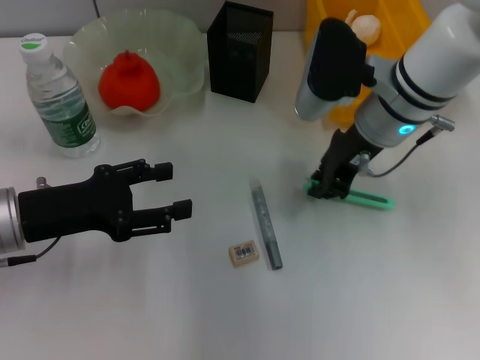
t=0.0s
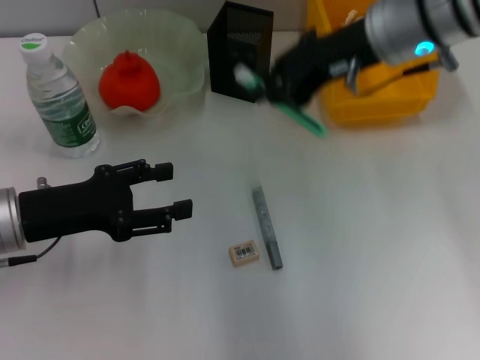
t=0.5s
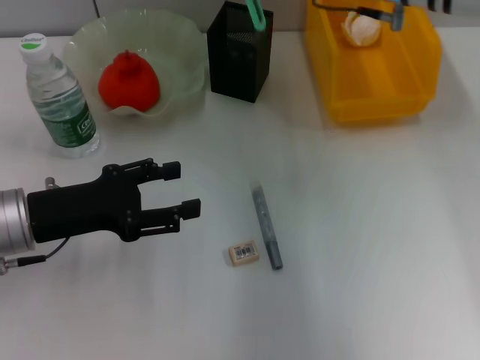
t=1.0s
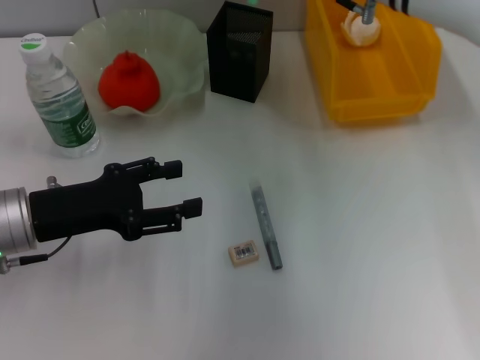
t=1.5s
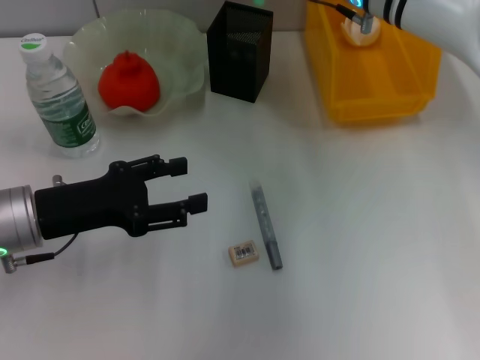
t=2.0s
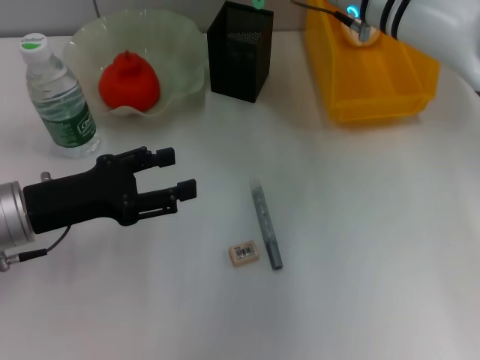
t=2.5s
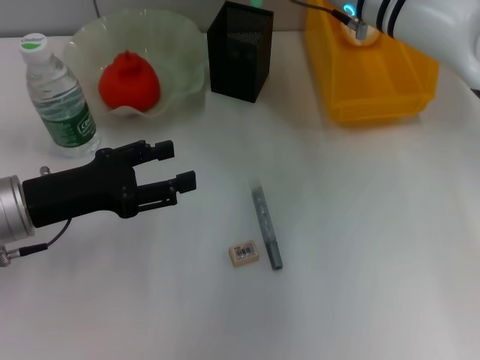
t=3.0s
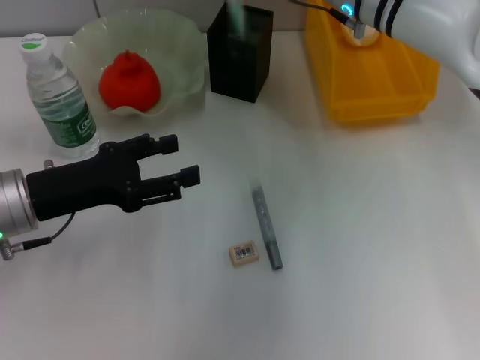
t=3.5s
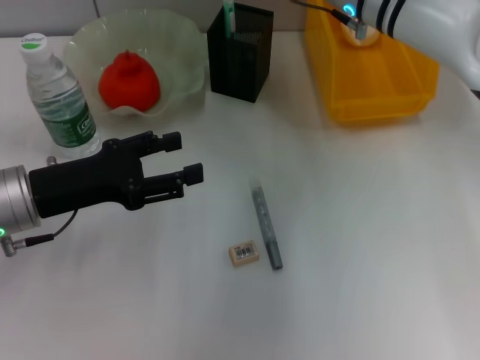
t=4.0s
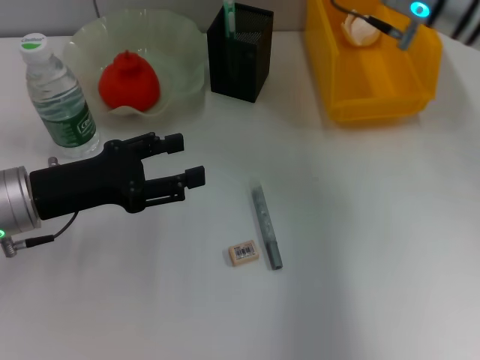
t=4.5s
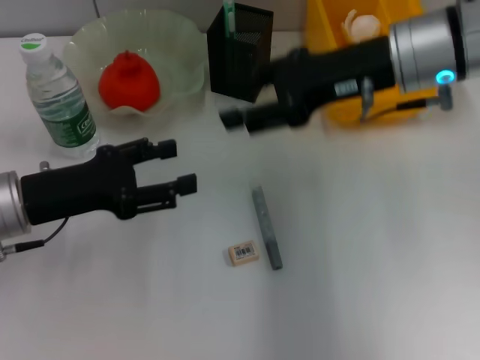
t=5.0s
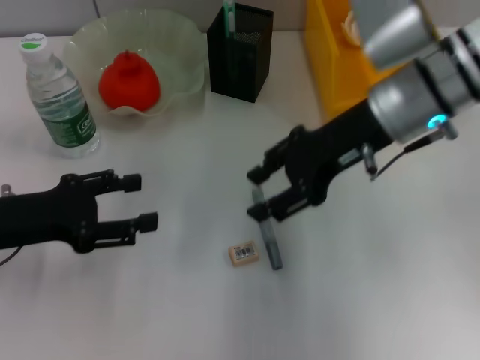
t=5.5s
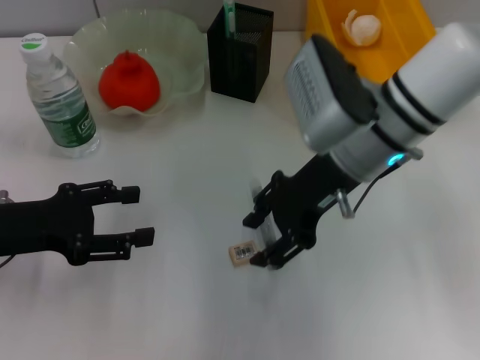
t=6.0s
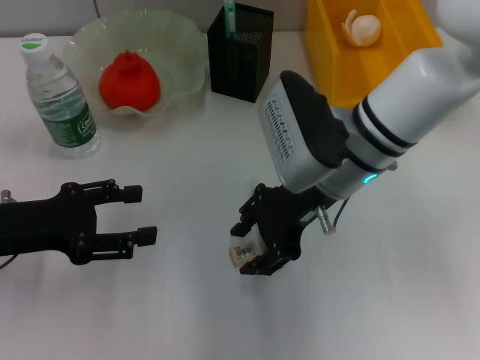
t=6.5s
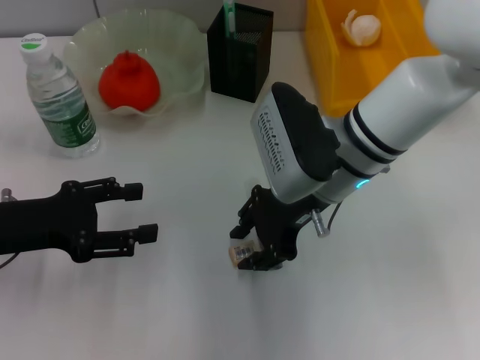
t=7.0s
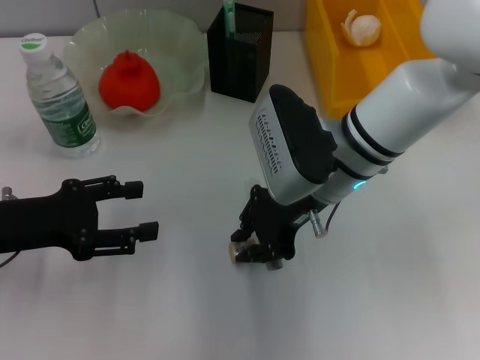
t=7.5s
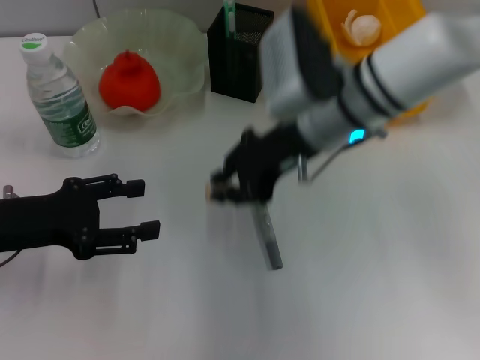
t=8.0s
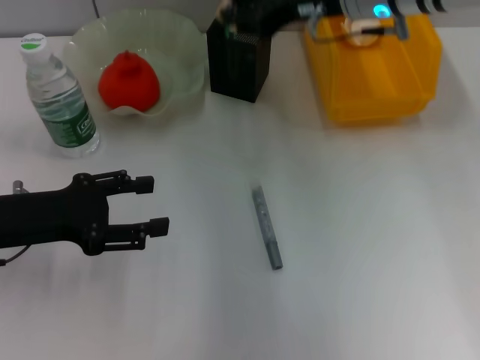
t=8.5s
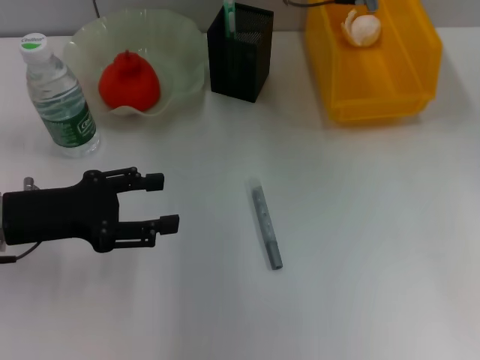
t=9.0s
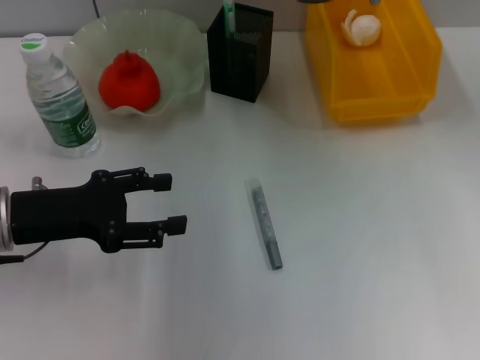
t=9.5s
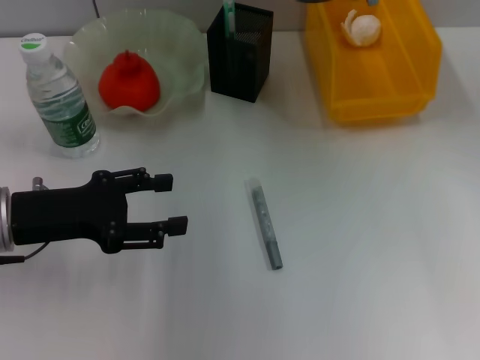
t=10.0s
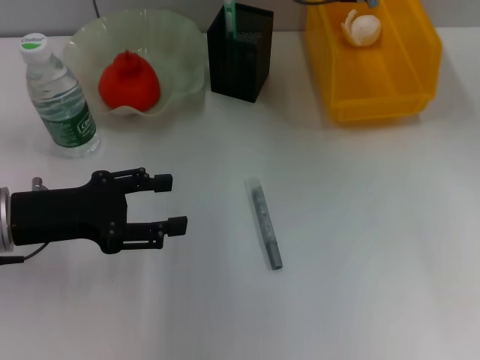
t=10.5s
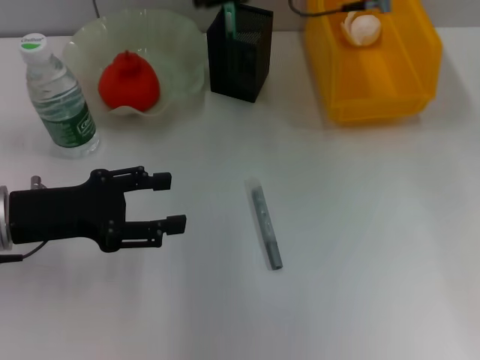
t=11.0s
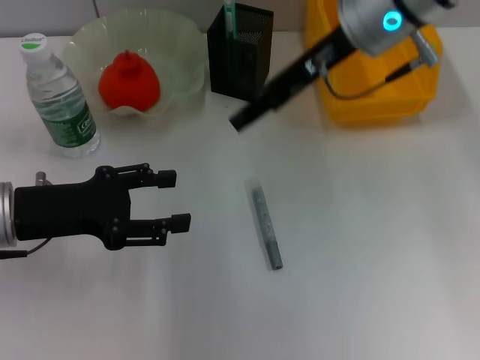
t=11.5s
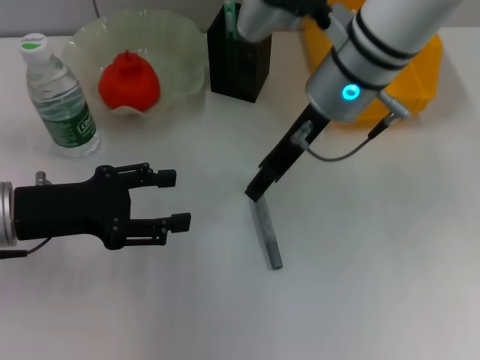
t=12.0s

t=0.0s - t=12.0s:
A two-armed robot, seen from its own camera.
Step, t=0.0s - t=4.0s: Place the blue utility knife into the pen holder with the right hand.
Step, t=4.5s - t=7.0s: Grab the eraser with the right hand.
Step, t=7.5s - t=10.5s: Put the eraser into the pen holder with the right hand.
t=0.0s - t=2.0s: The right gripper moves forward, about 5 cm.
t=2.0s - t=4.0s: The right gripper opens its fingers.
t=4.0s - t=6.0s: The left gripper shifts by some 5 cm, while the right gripper travels backward by roughly 10 cm.
t=6.0s - t=8.0s: The right gripper closes up.
t=8.0s - t=10.0s: The right gripper goes roughly 10 cm forward and upward.
t=10.0s - t=12.0s: The right gripper moves backward, some 10 cm, and opens up.

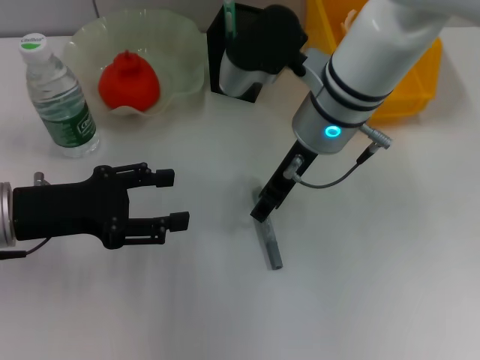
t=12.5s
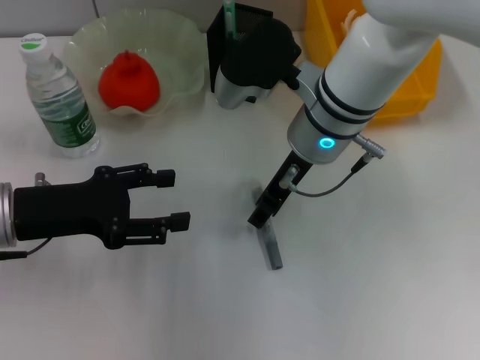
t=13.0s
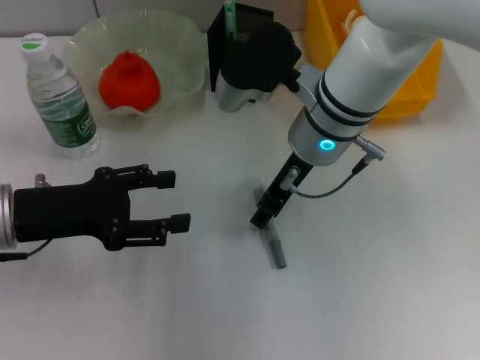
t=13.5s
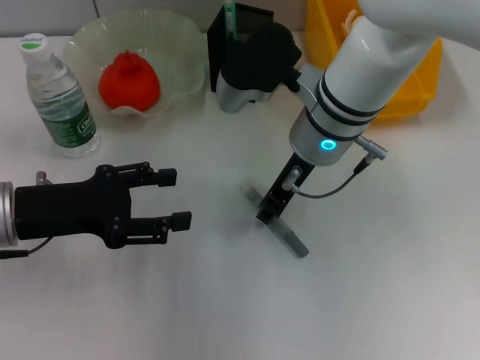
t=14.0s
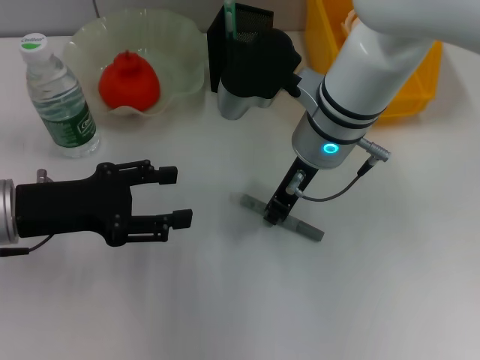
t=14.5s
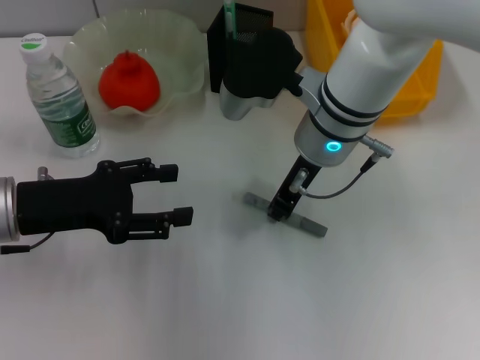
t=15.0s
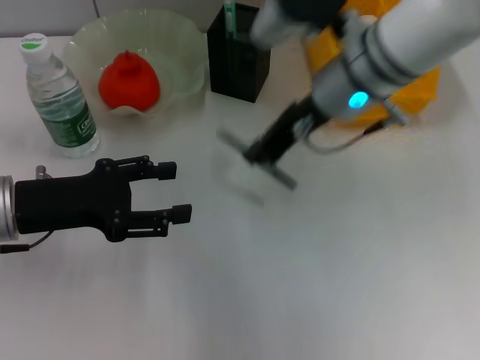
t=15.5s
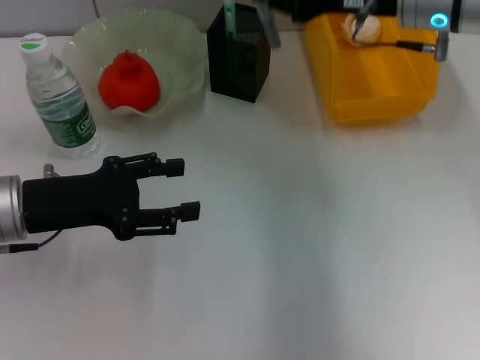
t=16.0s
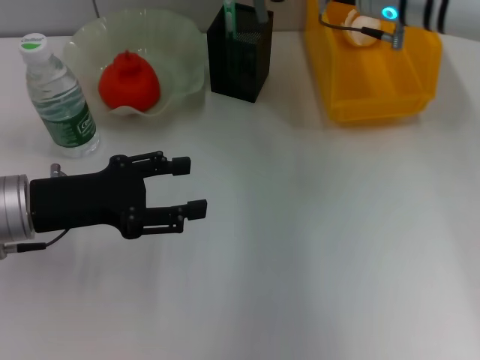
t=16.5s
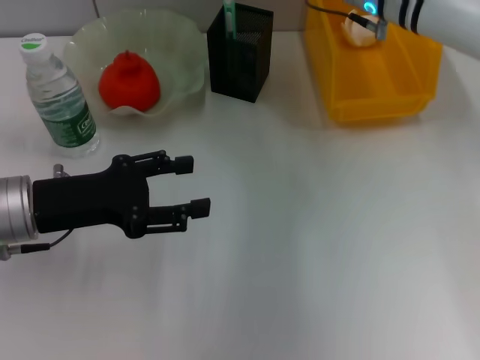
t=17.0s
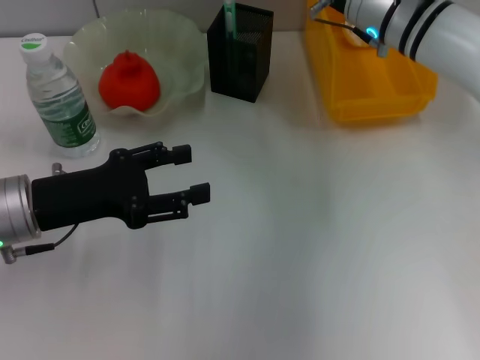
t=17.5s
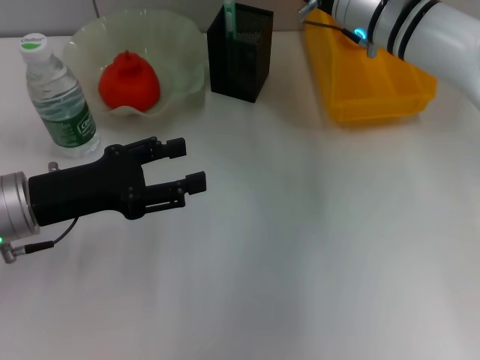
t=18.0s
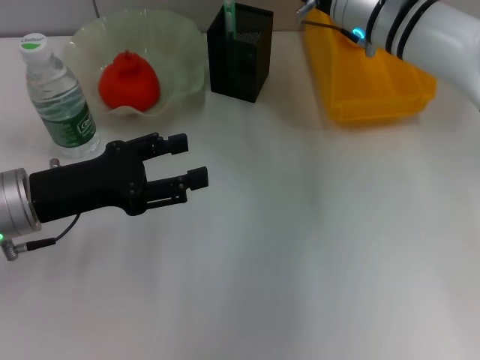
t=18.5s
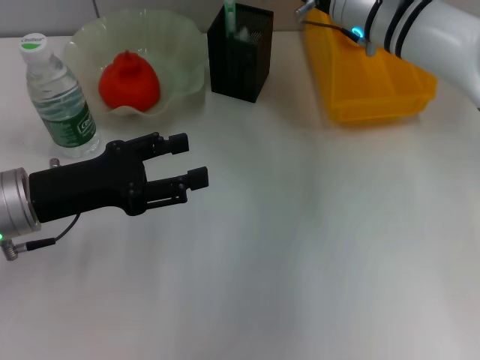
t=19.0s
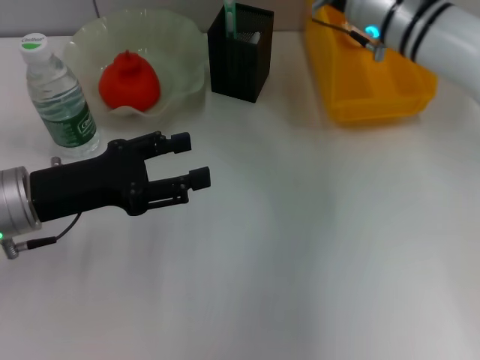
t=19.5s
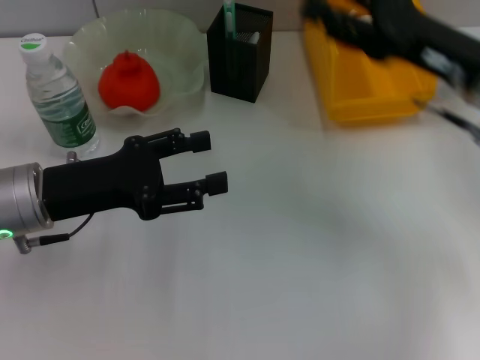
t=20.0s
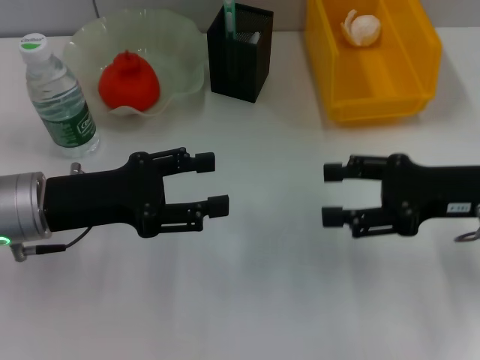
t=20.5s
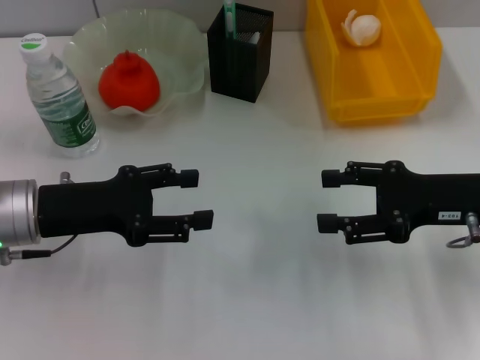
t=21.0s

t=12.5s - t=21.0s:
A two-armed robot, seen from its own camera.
Step, t=12.5s - t=14.5s: Grab the gray glue with the right hand.
Step, t=15.0s - t=19.5s: Place the gray glue into the pen holder with the right hand.
t=12.5s - t=14.5s: The right gripper closes.
t=14.5s - t=16.5s: The right gripper travels to the right and forward by approximately 10 cm.
t=16.5s - t=19.0s: The grippers make only small movements.
t=19.0s - t=21.0s: The right gripper moves backward and to the right, some 20 cm, and opens.

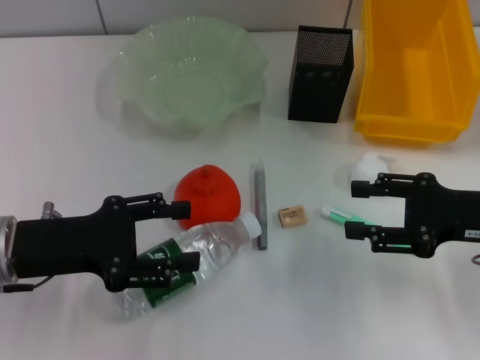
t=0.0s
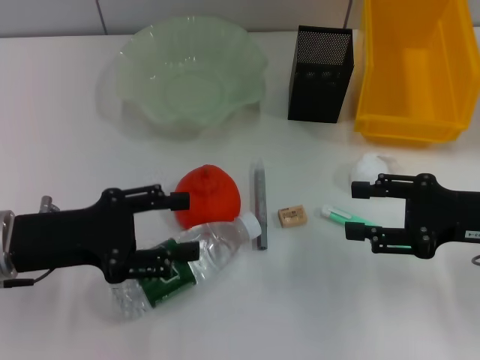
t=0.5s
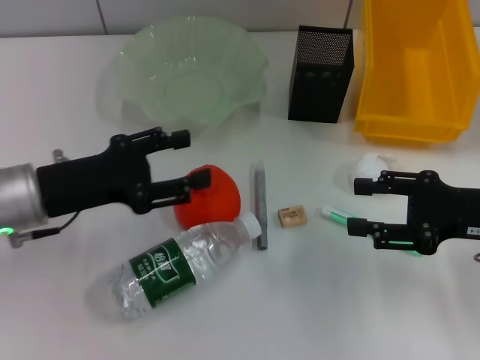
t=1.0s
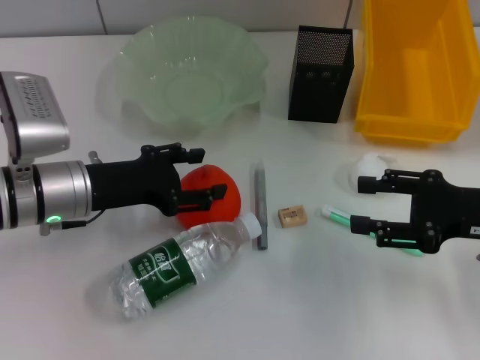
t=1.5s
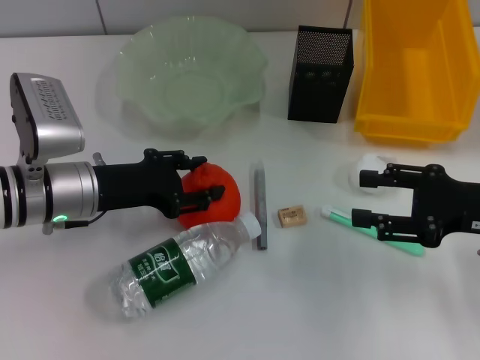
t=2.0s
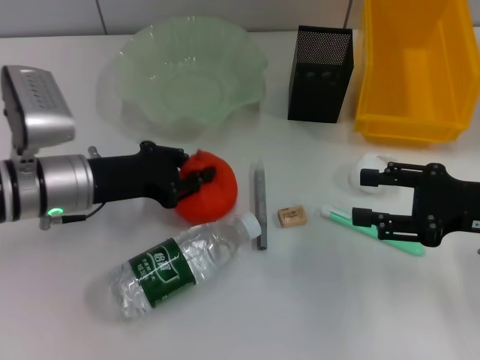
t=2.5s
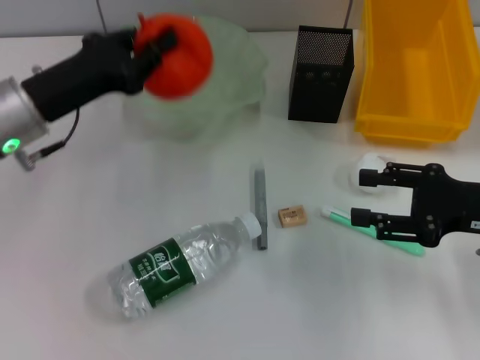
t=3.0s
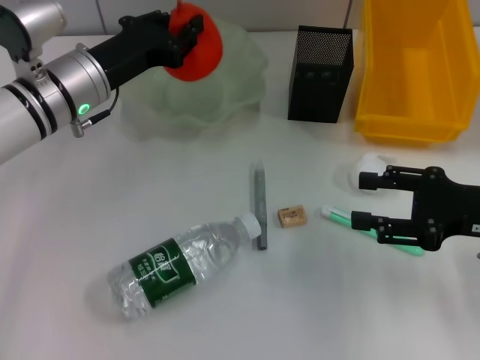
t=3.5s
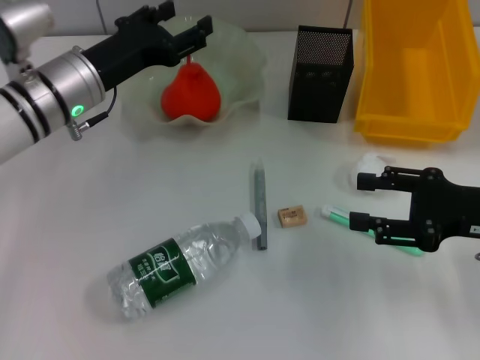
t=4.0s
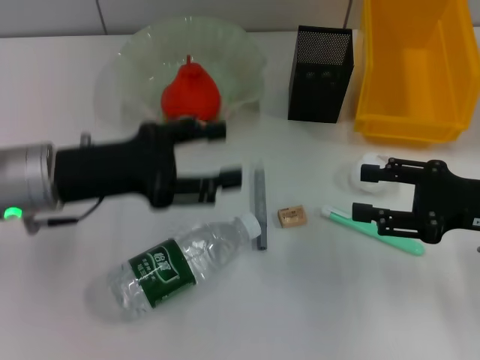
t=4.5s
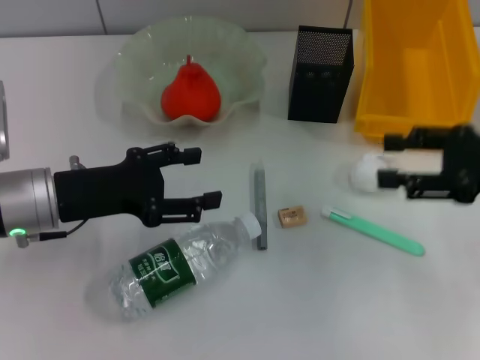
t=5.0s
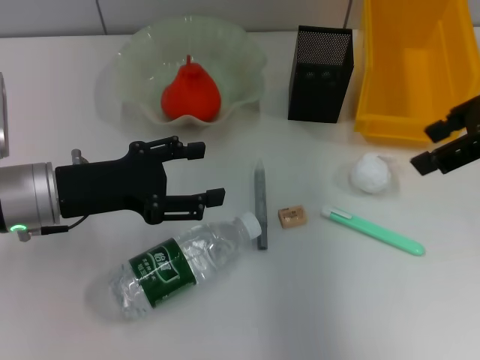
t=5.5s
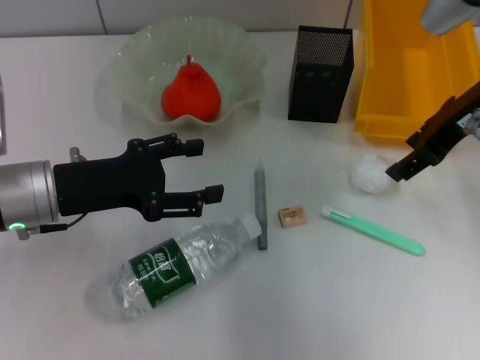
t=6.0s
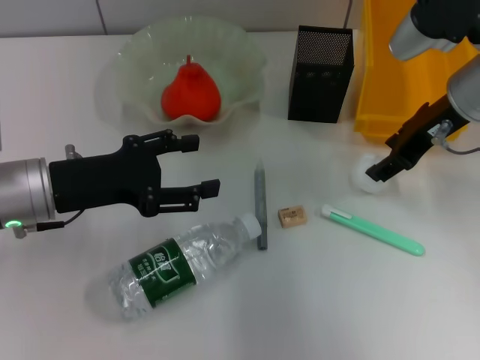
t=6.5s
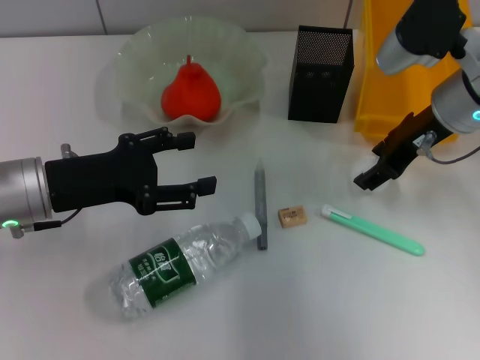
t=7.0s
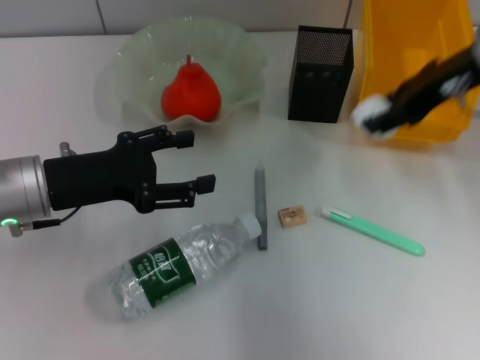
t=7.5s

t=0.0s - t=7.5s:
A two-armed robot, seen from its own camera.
Step, t=0.0s - t=2.0s: Grab the orange with the left hand.
Step, t=2.5s - t=3.5s: Place the orange into the fruit bowl with the left hand.
Step, t=4.0s - t=7.0s: Grab the paper ball with the right hand.
t=0.0s - t=2.0s: The left gripper heads forward, covering roughly 5 cm.
t=2.0s - t=4.0s: The left gripper is displaced forward by approximately 5 cm, and closes, then opens again.
t=4.0s - t=5.5s: The right gripper moves upward and forward, about 20 cm. Meanwhile the left gripper is displaced backward by approximately 10 cm, and opens up.
t=5.5s - t=7.5s: The right gripper travels downward and back again, approximately 10 cm each way.
